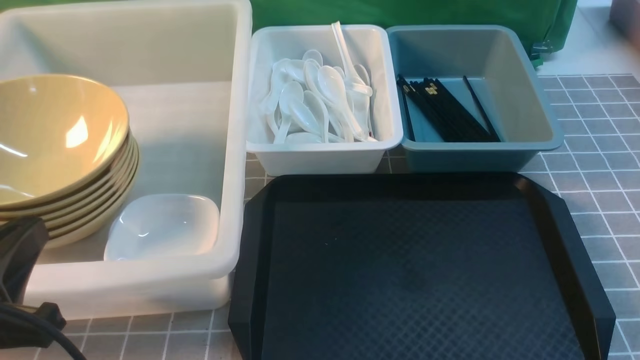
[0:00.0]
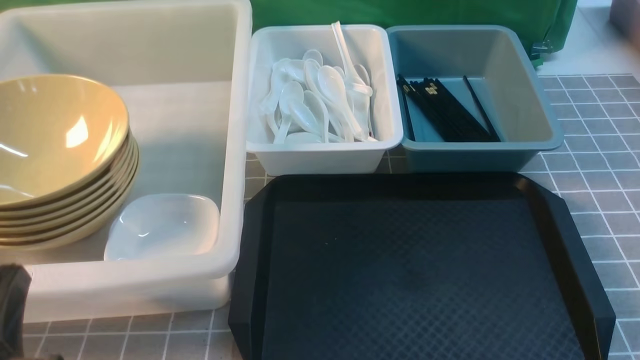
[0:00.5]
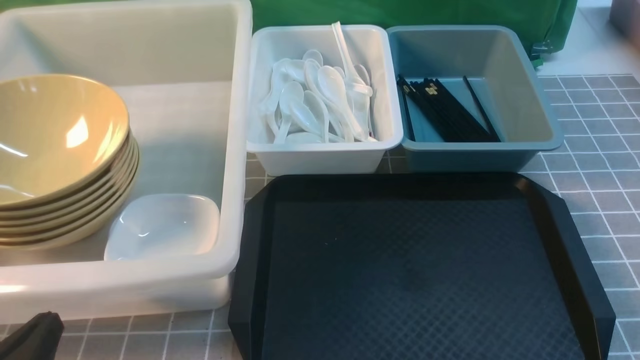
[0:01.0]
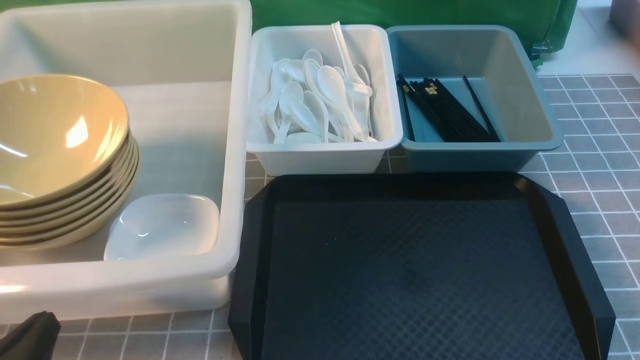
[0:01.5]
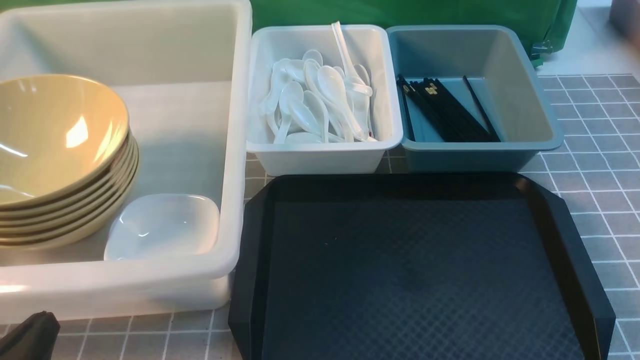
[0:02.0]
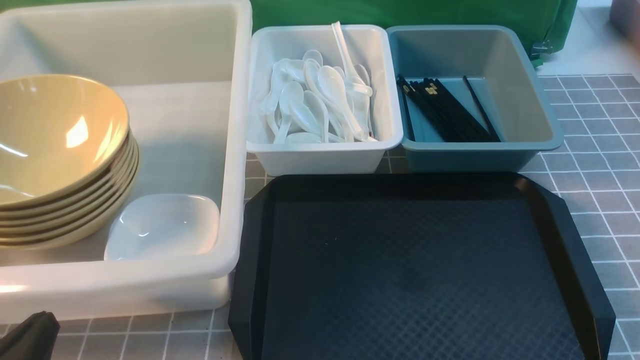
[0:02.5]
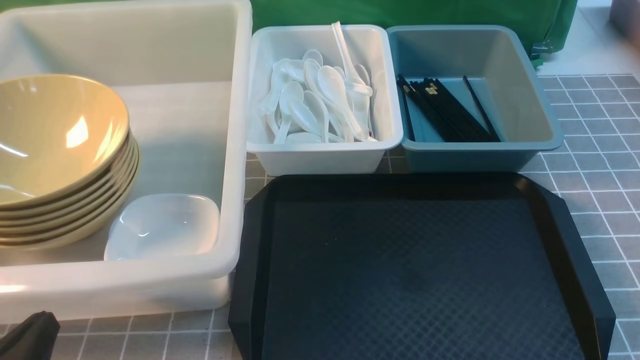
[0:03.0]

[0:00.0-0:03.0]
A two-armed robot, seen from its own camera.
Task of the whole recording: on grey table put chopsticks spoon bowls plates into blue grey white boxes.
0:00.0 to 0:01.5: The left gripper travels downward by approximately 10 cm.
0:01.5 to 0:03.0: Neither gripper changes place.
